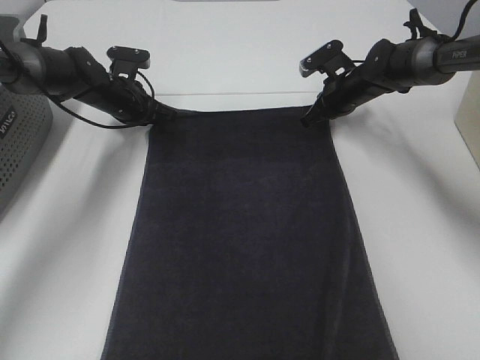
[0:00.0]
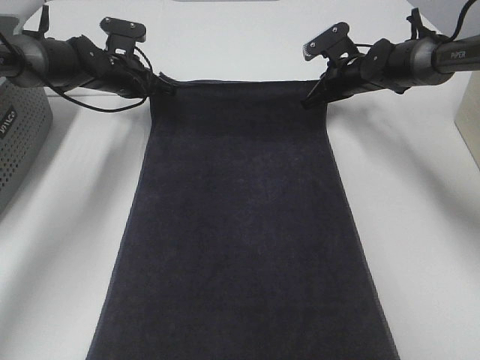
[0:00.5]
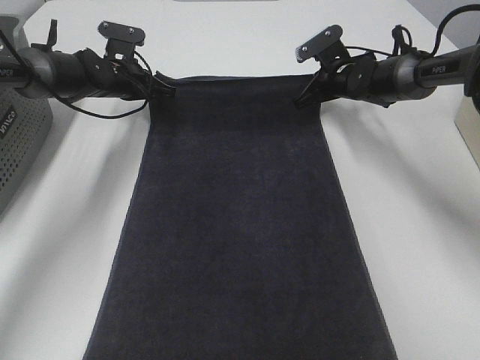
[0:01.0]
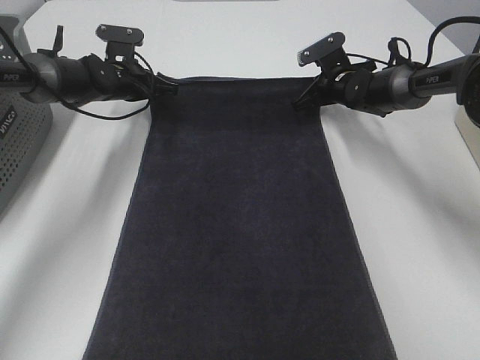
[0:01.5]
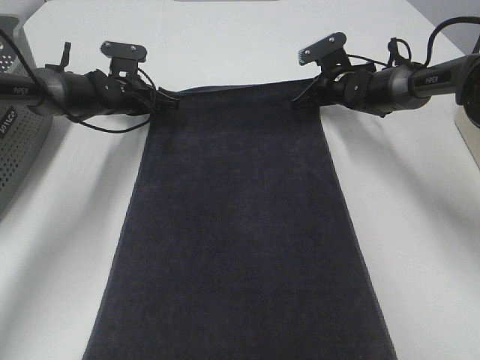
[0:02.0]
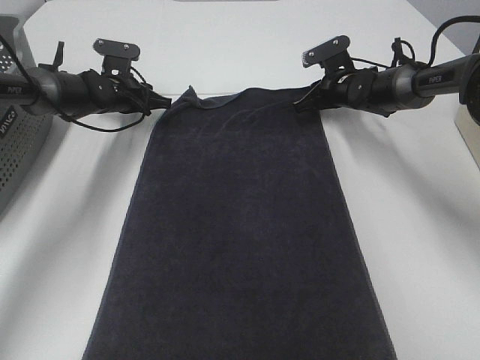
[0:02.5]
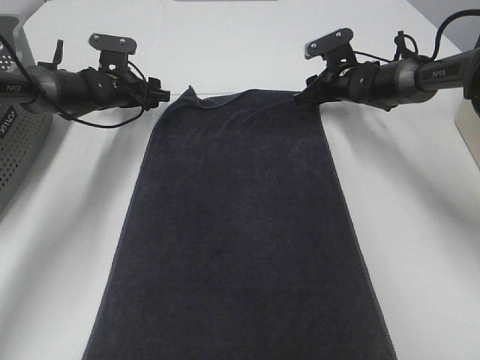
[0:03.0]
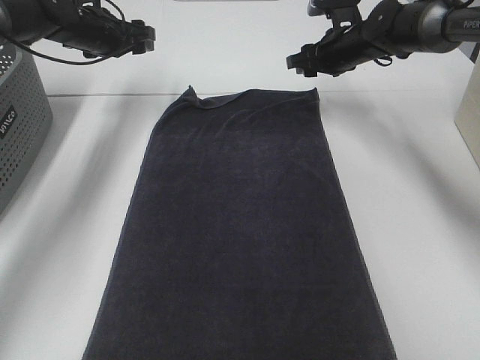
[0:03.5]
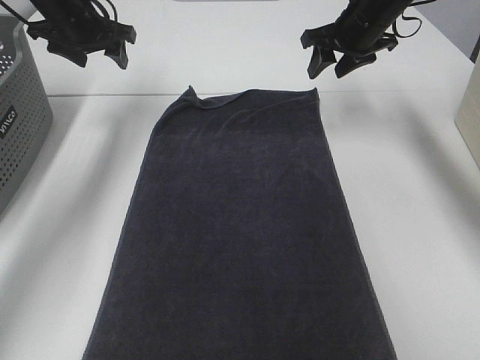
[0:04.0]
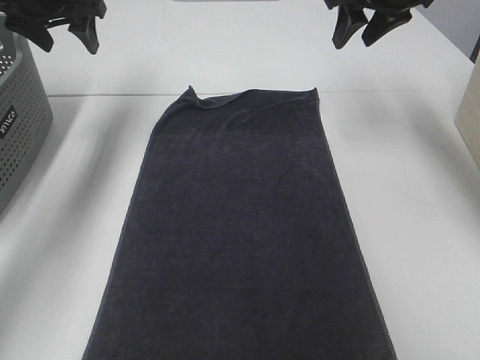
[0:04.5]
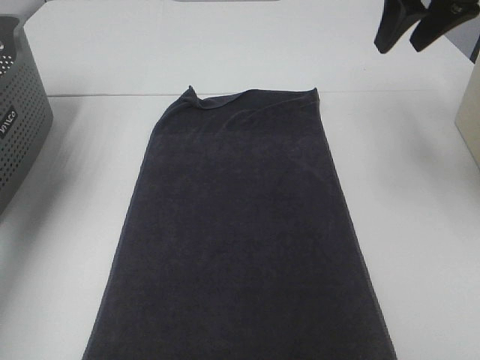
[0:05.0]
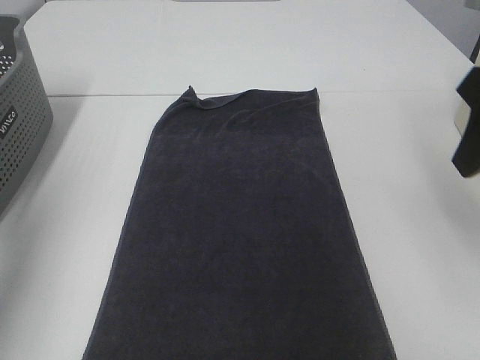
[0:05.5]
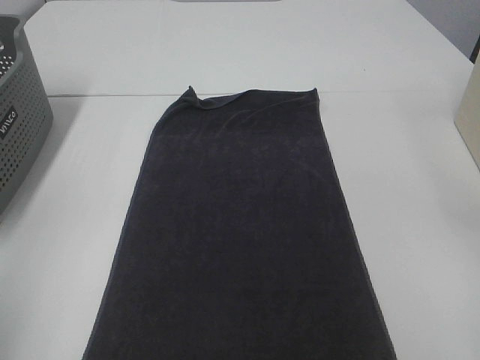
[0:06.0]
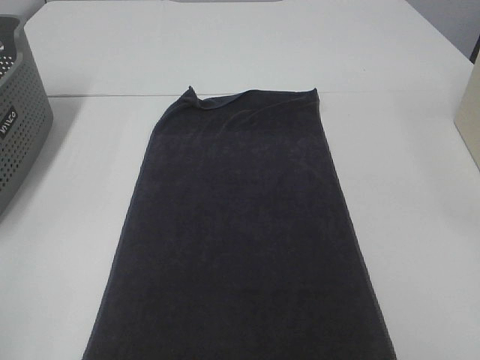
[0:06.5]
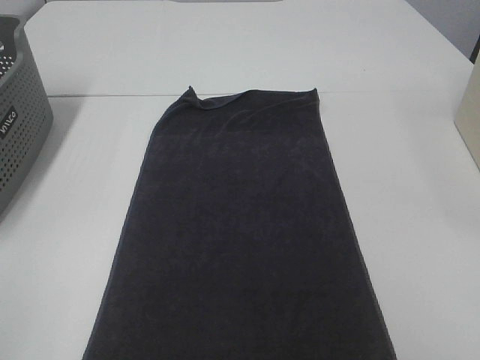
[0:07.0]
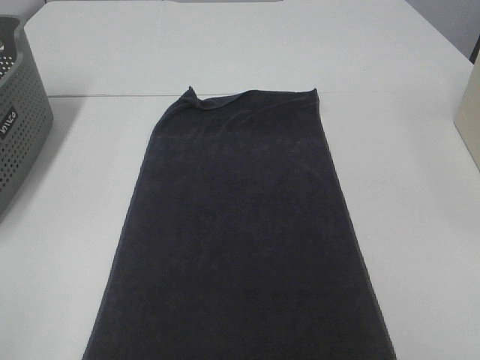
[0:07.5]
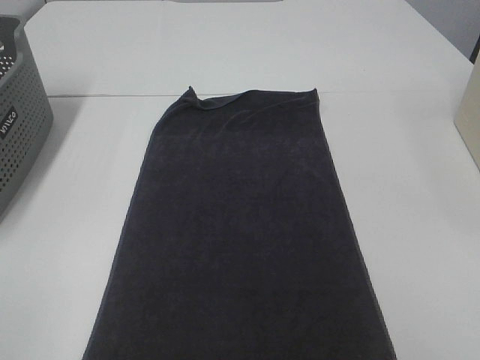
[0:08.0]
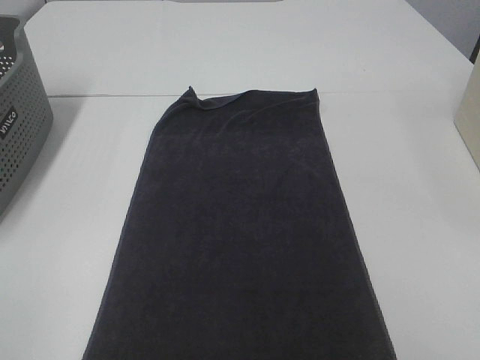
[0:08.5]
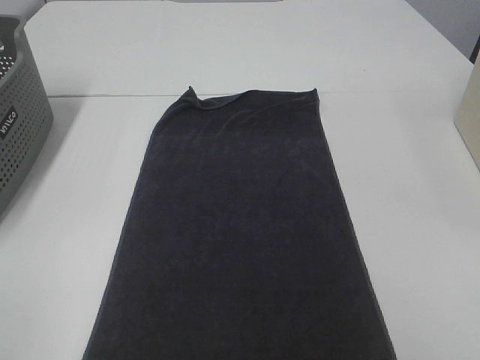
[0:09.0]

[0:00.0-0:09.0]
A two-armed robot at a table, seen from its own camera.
Task of the whole recording: Remove the towel and place it.
0:02.0 to 0:04.5: The two grippers go roughly 20 cm upward. The right gripper opens its fingers, while the left gripper opens its fingers.
0:04.5 to 0:07.0: The two grippers go some 50 cm backward.
